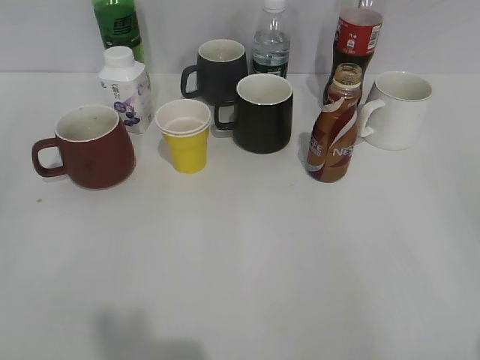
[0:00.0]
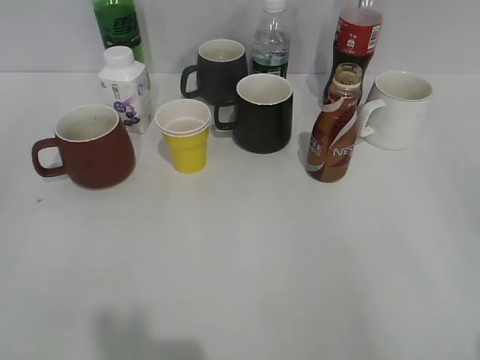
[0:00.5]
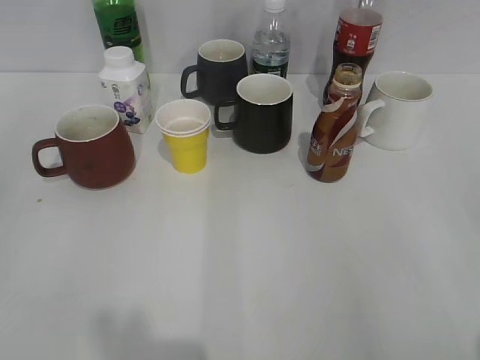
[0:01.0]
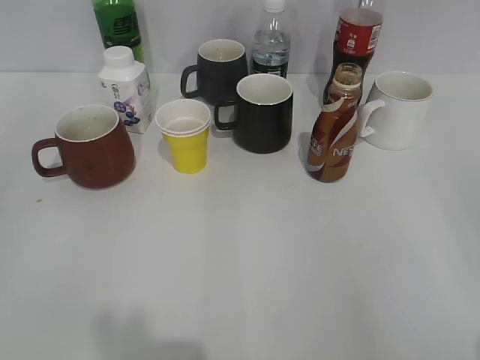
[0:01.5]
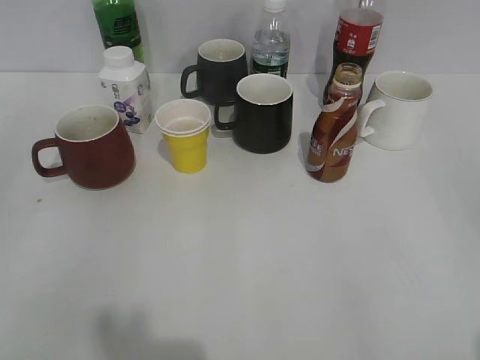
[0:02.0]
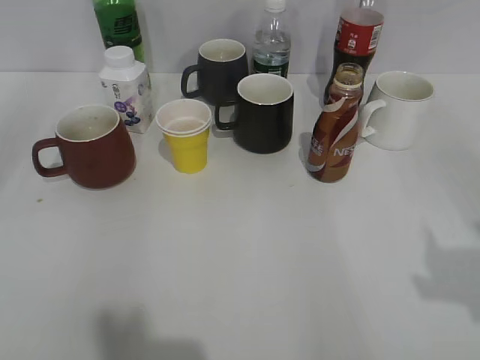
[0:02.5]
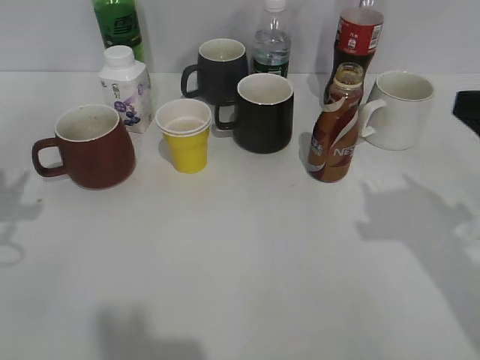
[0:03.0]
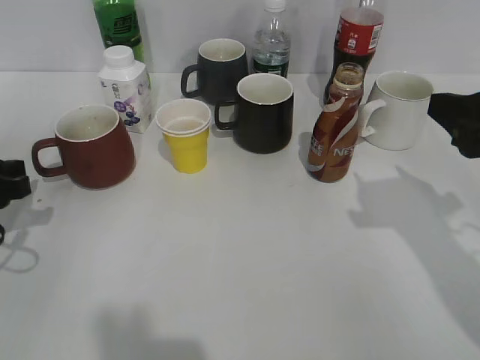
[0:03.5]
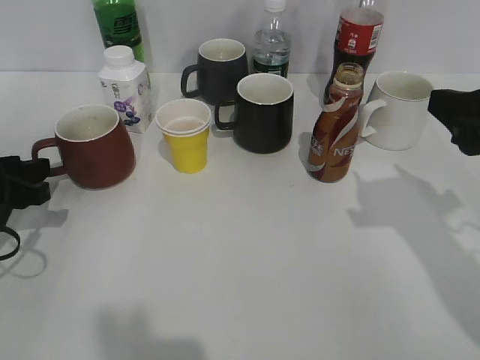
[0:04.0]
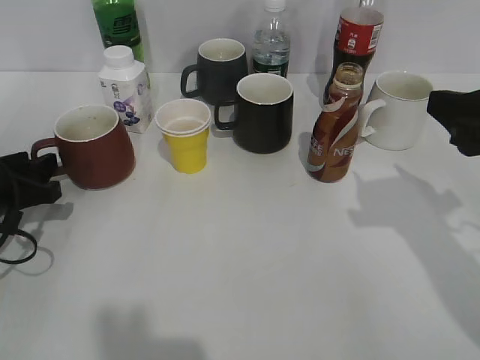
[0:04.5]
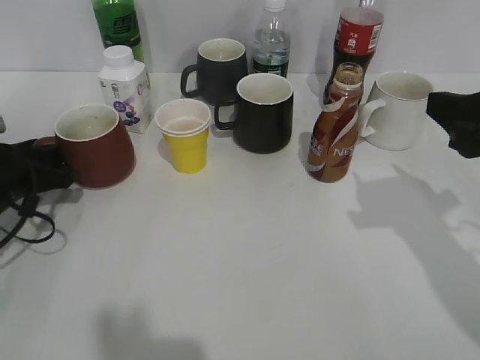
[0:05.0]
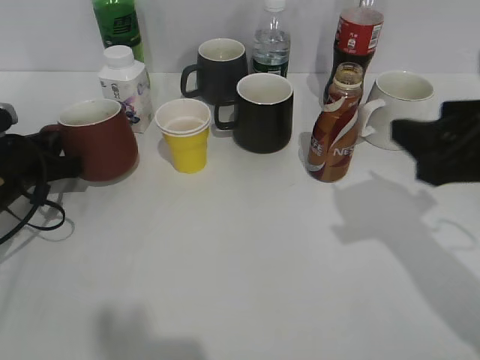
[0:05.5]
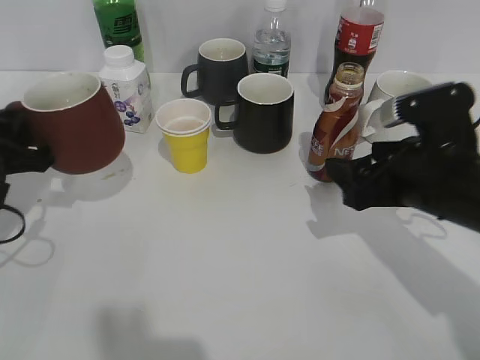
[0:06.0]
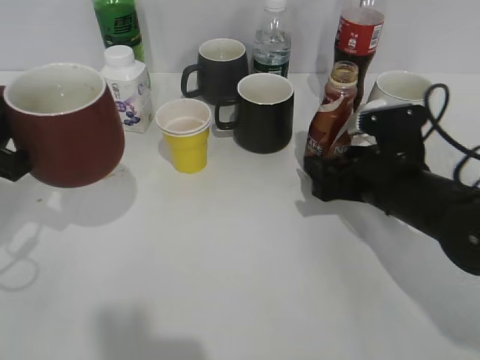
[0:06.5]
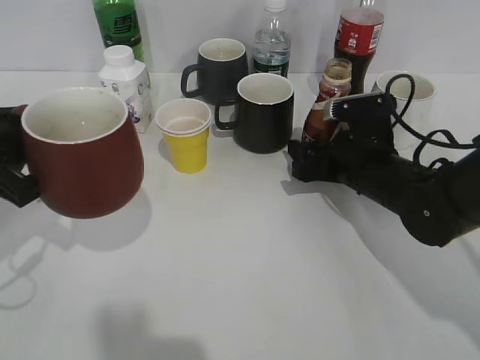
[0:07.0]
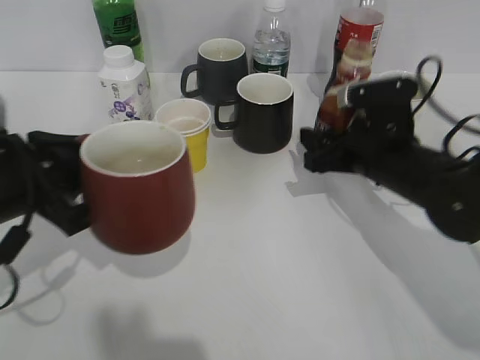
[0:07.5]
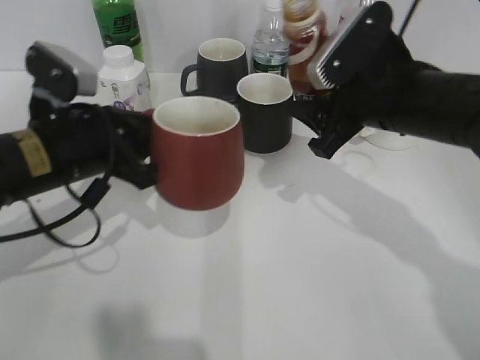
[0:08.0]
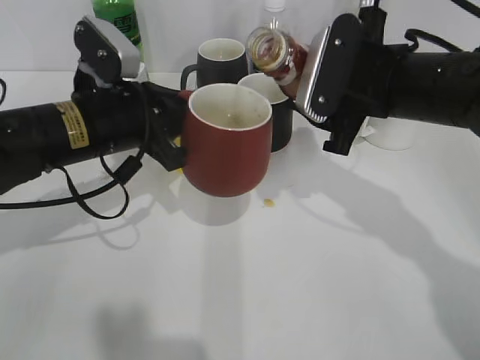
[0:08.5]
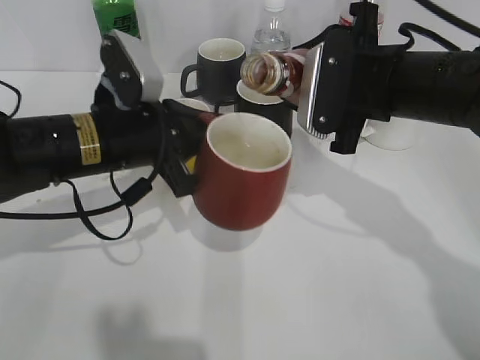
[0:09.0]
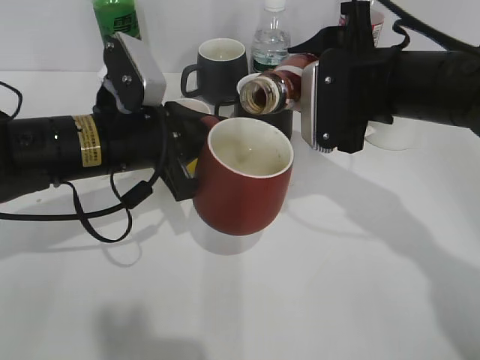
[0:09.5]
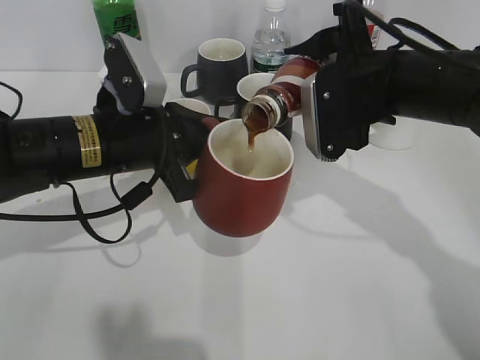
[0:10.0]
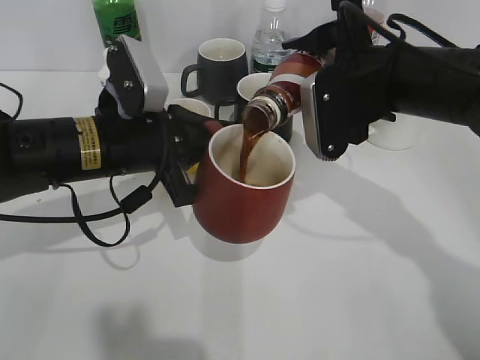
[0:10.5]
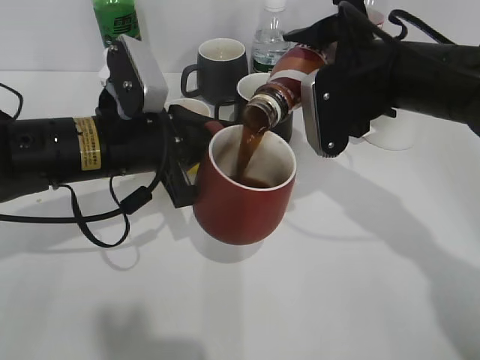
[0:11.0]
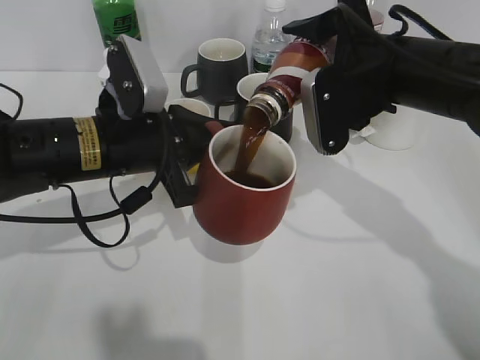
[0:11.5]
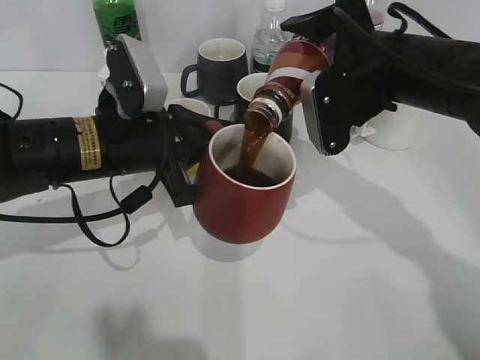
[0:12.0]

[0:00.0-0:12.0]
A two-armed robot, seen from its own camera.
Step, 0:02.0 to 0:05.0: Grasp the red cup with left gripper.
Step, 0:06.0 to 0:07.0: Grasp the bottle with coffee with right gripper.
0:02.0 to 0:04.0: The left gripper is displaced forward and downward by roughly 30 cm, and opens; the right gripper heads forward, covering roughly 20 cm.
0:04.0 to 0:06.0: The left gripper closes. Meanwhile the right gripper heads downward and to the left, covering some 10 cm, and opens up.
0:06.0 to 0:08.0: The right gripper goes about 5 cm forward, and closes up, while the left gripper is displaced to the right by about 10 cm.
0:10.0 to 0:12.0: There are only small adjustments of the grippers.

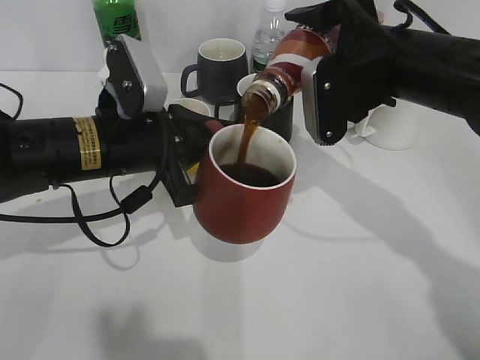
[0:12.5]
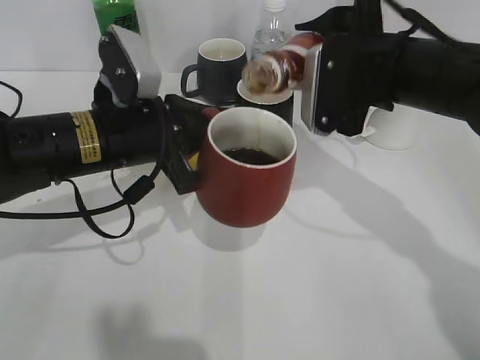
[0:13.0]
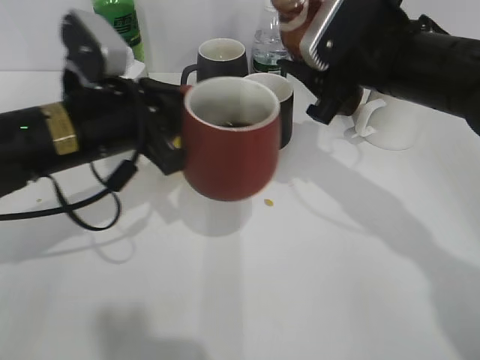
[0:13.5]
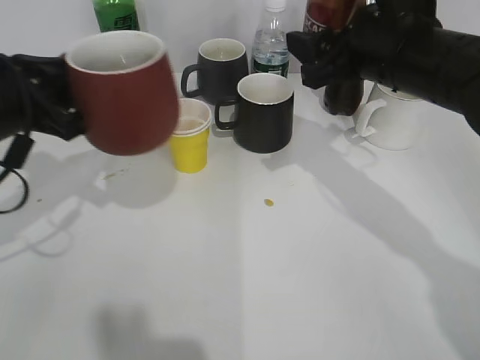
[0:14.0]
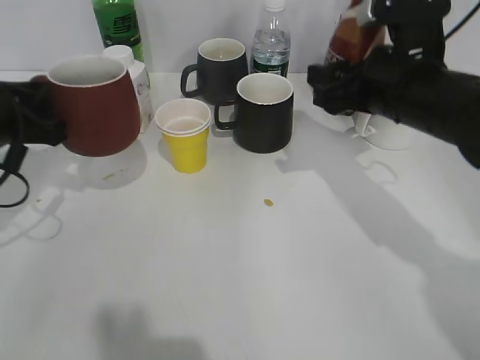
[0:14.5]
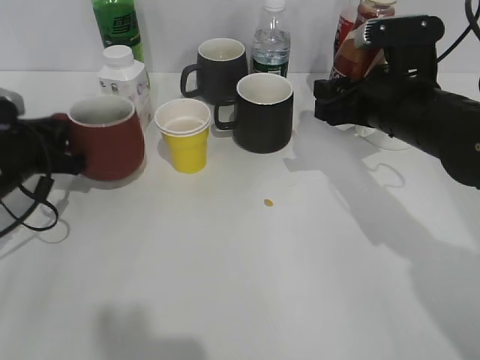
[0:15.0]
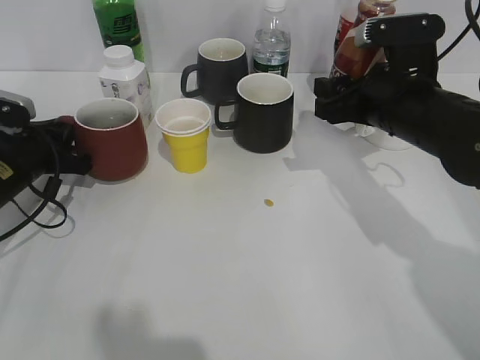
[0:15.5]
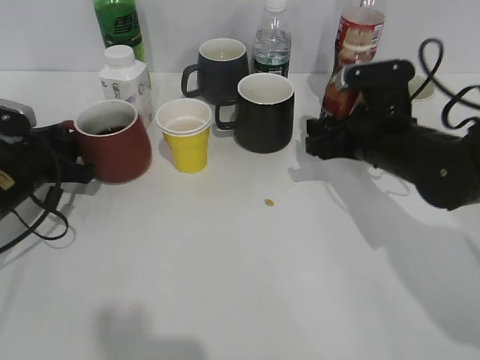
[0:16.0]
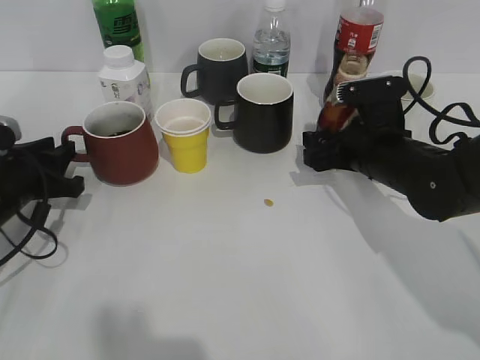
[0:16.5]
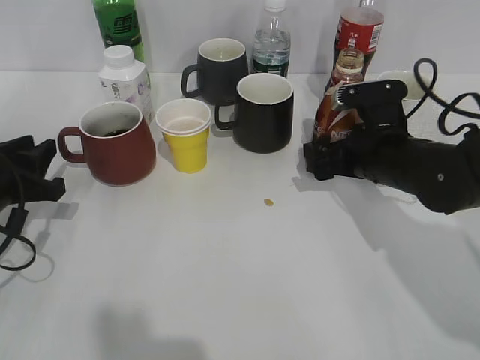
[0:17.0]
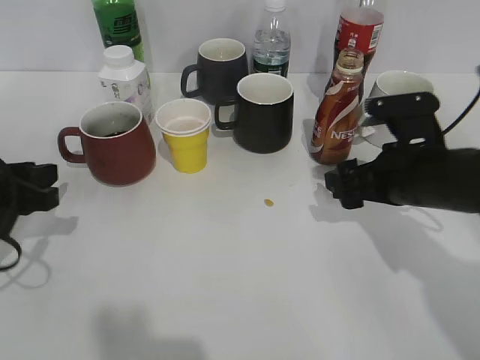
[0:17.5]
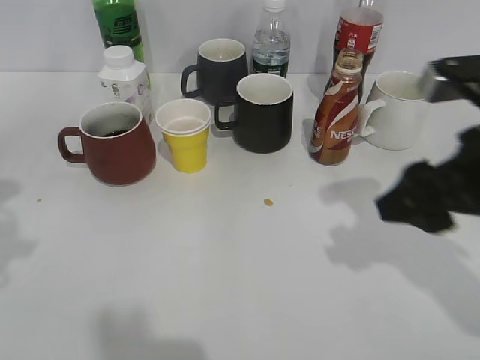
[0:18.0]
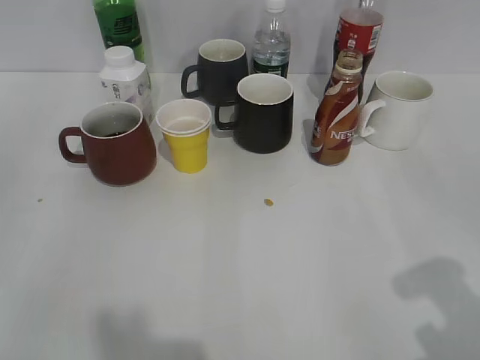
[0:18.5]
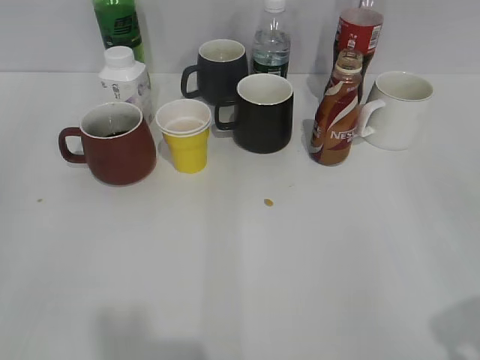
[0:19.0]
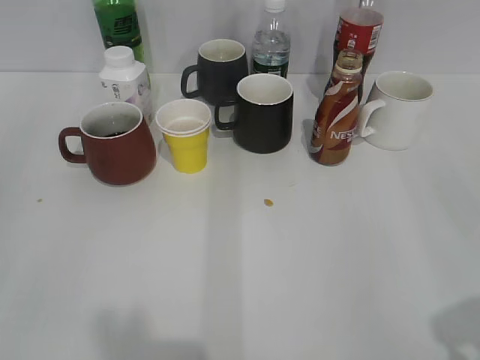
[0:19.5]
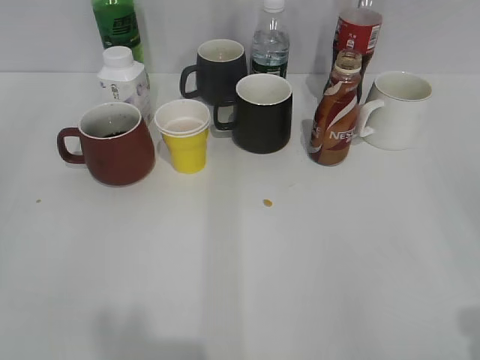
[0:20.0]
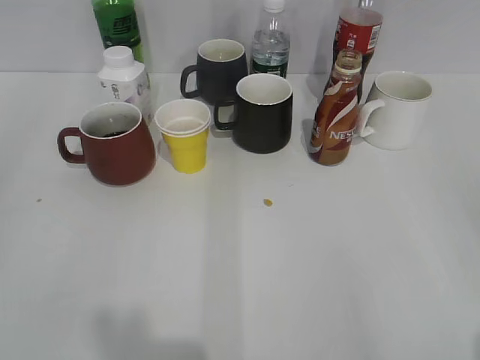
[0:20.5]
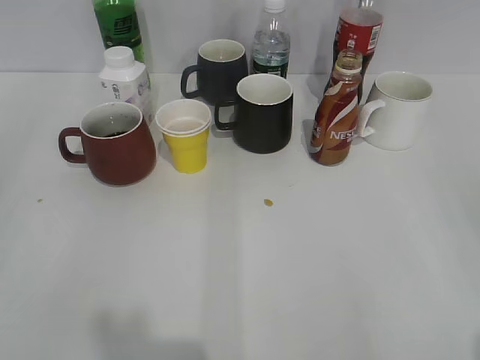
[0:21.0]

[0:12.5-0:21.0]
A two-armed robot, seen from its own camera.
Step, 0:13.5 to 0:17.0: Place the red cup on the table with left gripper.
0:12.5 to 0:14.5: The left gripper shifts roughly 15 cm to the left.
0:14.5 to 0:16.5: The two grippers go about 10 cm downward. The left gripper opens its fingers. The right gripper opens.
0:16.5 to 0:19.0: The left gripper goes some 30 cm backward and upward; the right gripper moves backward, upward and to the right, about 35 cm, and opens, then closes again.
